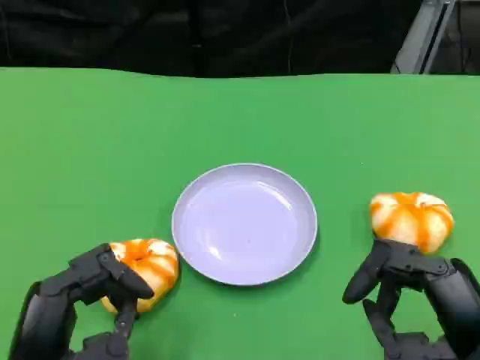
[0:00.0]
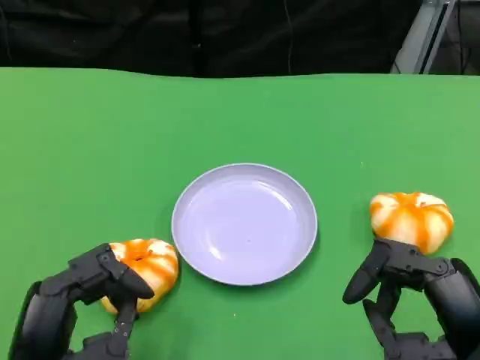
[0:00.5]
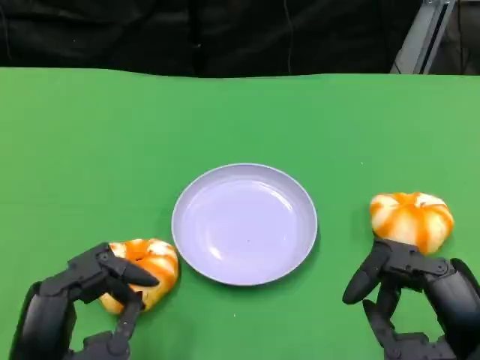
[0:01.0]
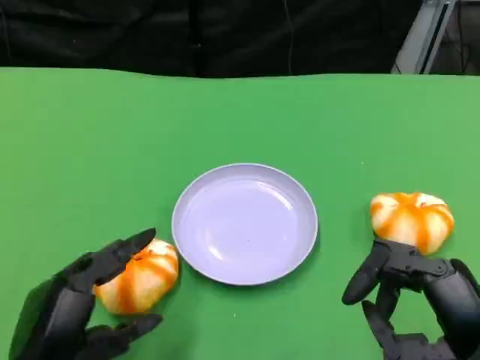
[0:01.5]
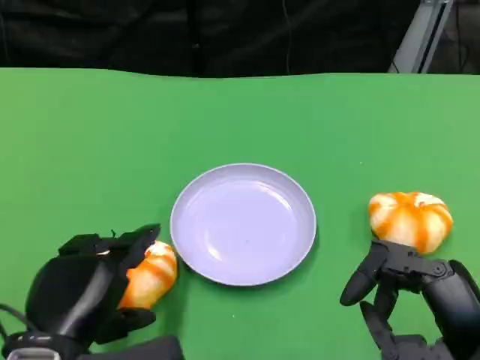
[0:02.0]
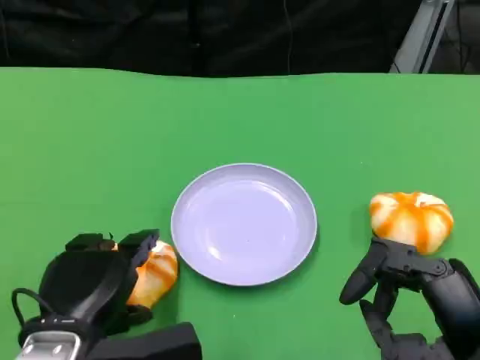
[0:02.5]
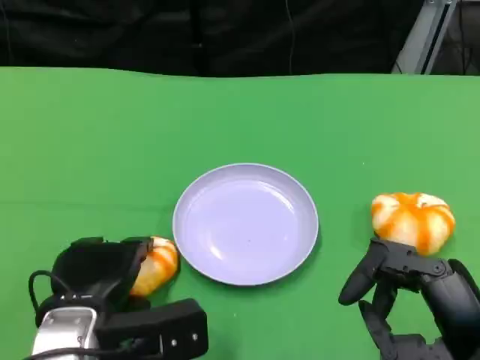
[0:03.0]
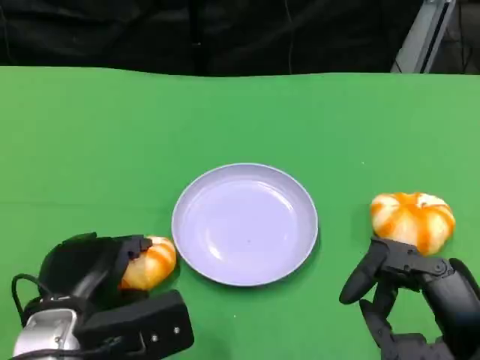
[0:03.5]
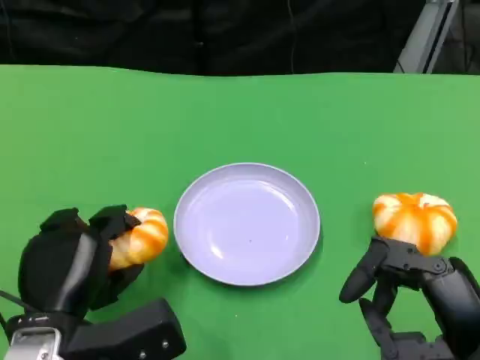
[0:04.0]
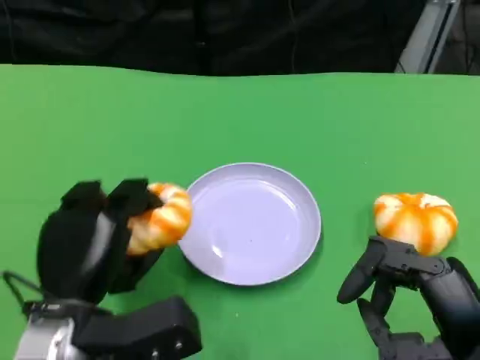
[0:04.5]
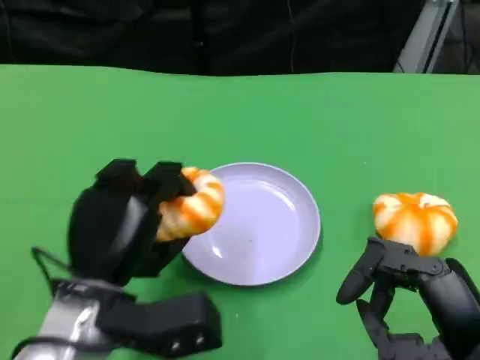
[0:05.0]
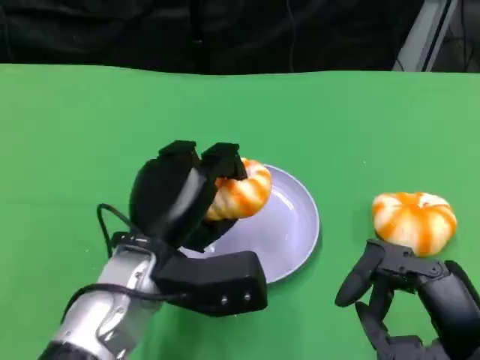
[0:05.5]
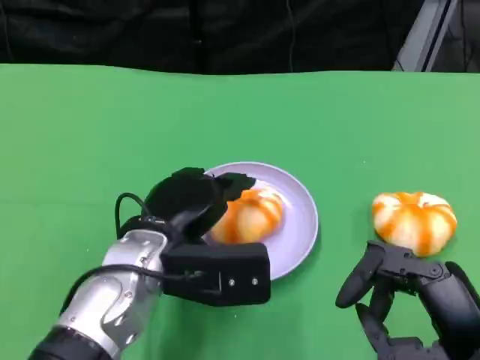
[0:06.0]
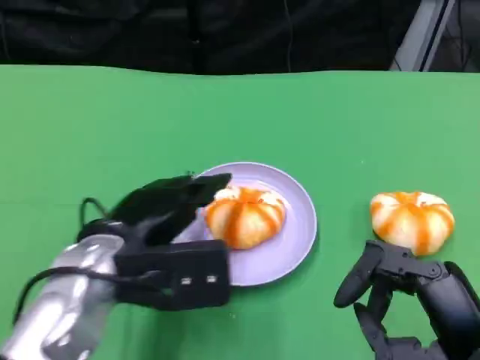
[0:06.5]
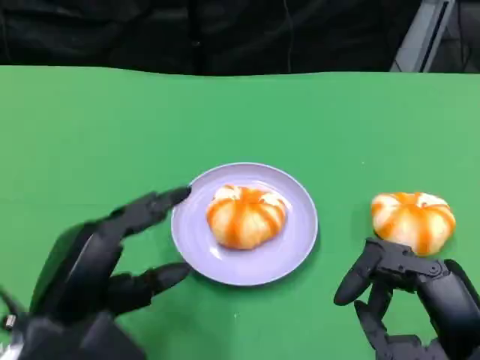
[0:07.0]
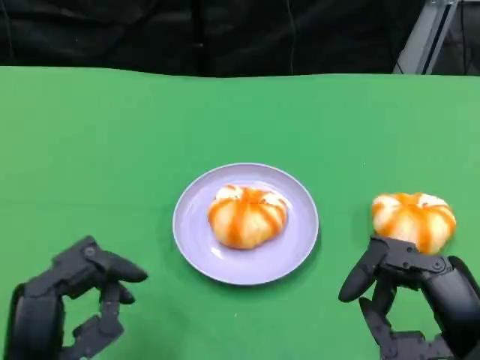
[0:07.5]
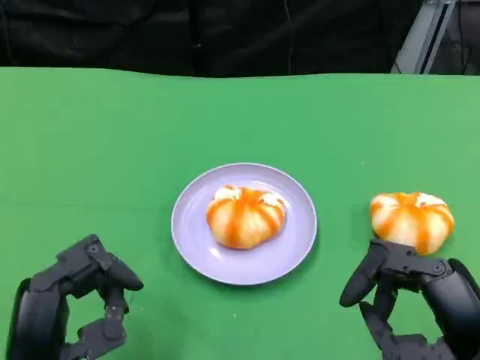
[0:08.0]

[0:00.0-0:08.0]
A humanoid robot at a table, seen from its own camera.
Task of the whole recording: Grasp the bread from the table and place it into the plate.
0:02.0 to 0:04.0: The hands move only a little.
0:04.0 to 0:06.0: The left hand heads to the right and forward, covering roughly 10 cm.
0:06.0 to 0:08.0: The left hand travels backward and to the left by about 15 cm.

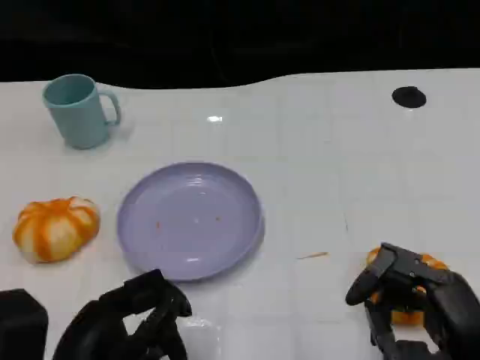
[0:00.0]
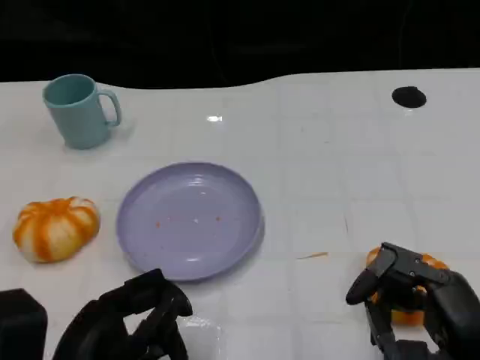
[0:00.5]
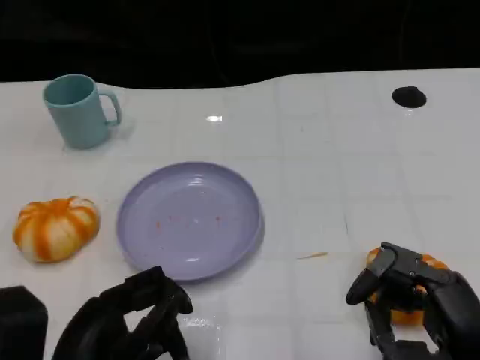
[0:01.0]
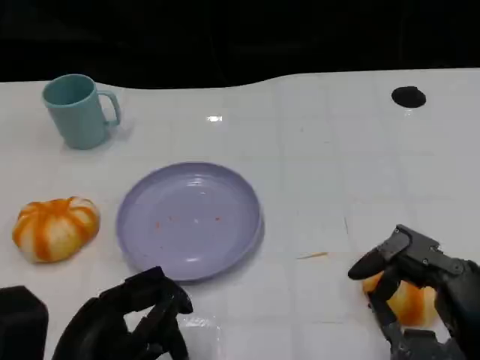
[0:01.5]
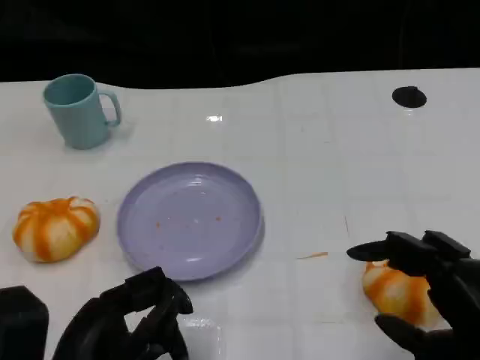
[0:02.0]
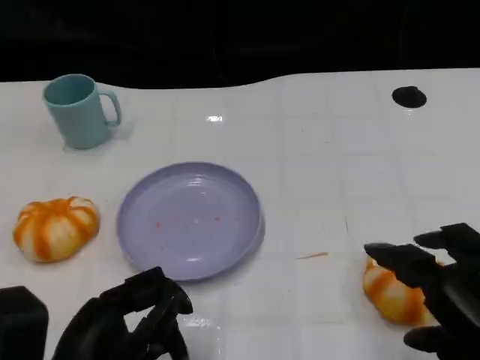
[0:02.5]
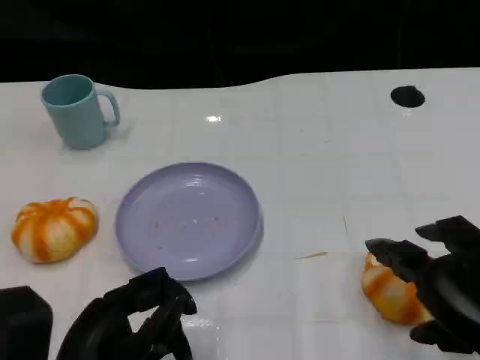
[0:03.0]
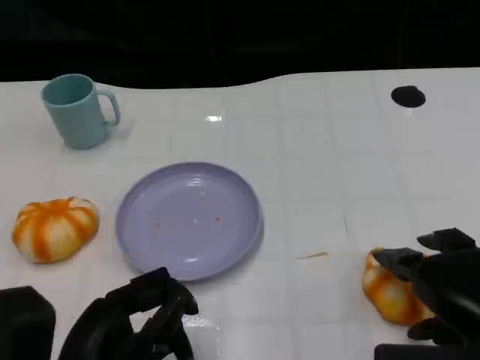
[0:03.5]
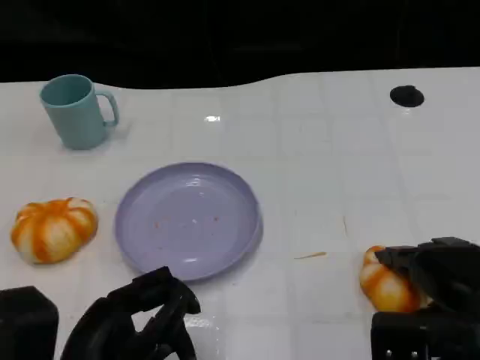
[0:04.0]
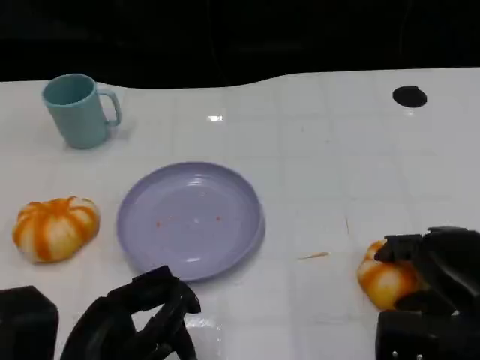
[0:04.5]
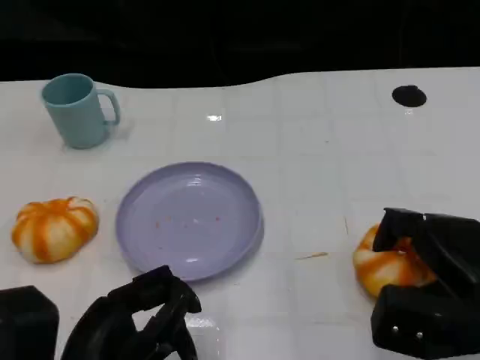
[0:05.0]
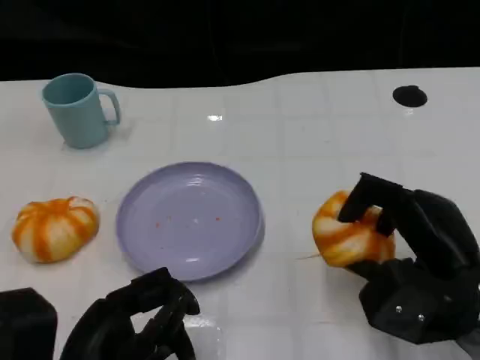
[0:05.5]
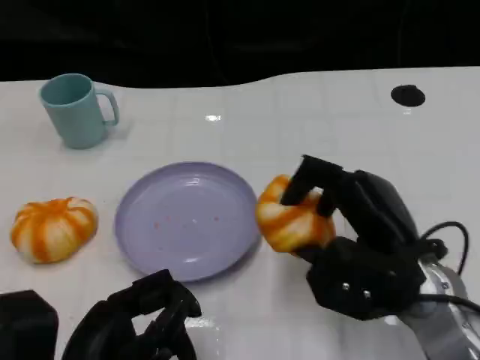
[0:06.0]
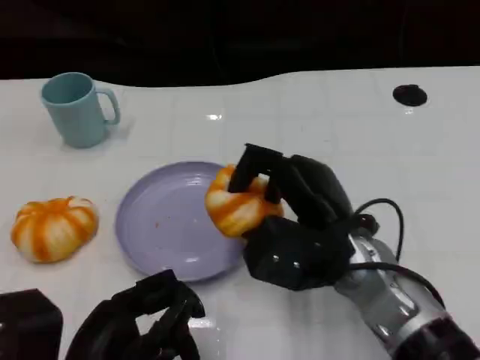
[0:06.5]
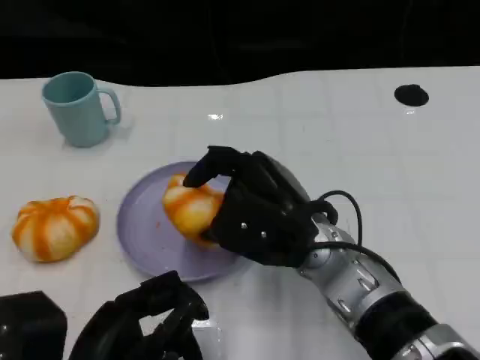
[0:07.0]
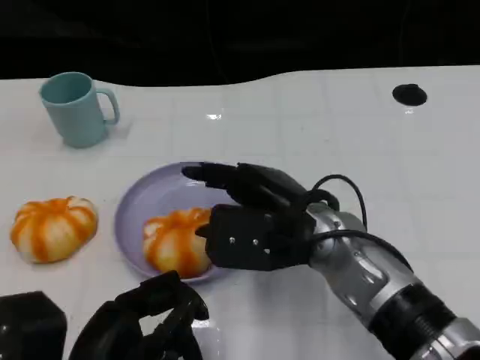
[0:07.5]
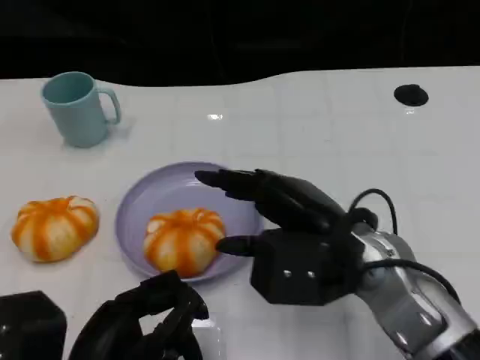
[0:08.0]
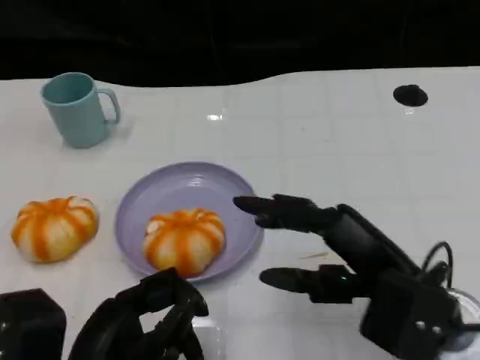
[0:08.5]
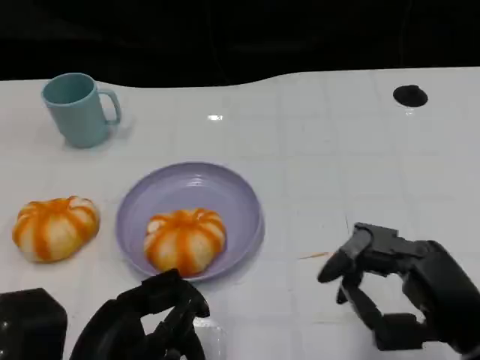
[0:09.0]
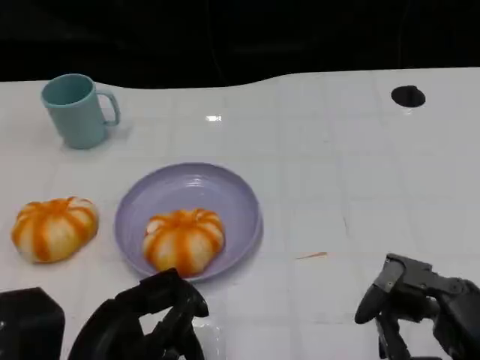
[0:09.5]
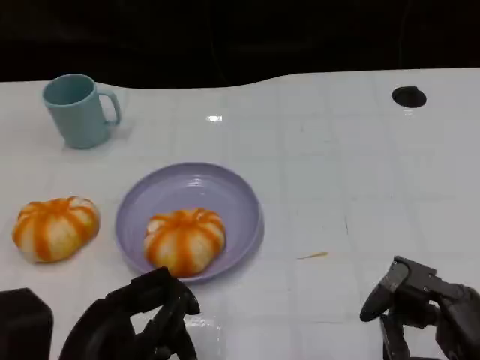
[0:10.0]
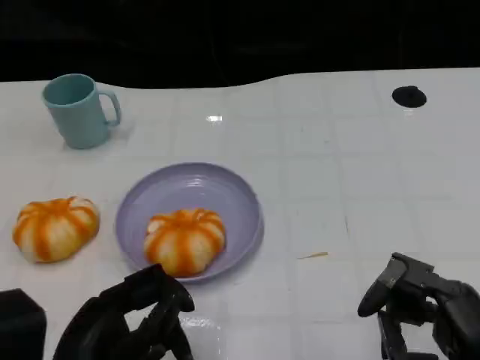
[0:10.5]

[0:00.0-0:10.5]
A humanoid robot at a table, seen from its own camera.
Task of the whole recording: Grasp the bread from the table and place it into the plate.
0:02.0 to 0:04.0: The right hand heads forward, covering approximately 5 cm.
0:04.0 to 0:06.5: The right hand travels to the left and forward by approximately 15 cm.
0:06.5 to 0:08.5: The right hand shifts some 10 cm to the right and backward.
0:08.5 to 0:10.5: The right hand heads backward and to the right, covering about 10 cm.

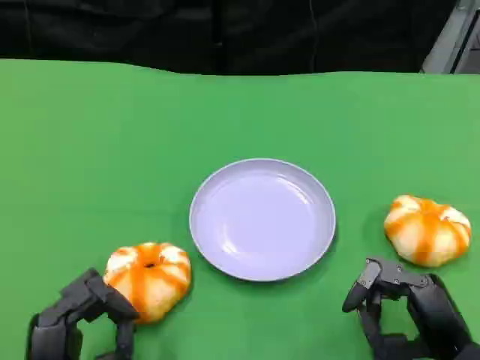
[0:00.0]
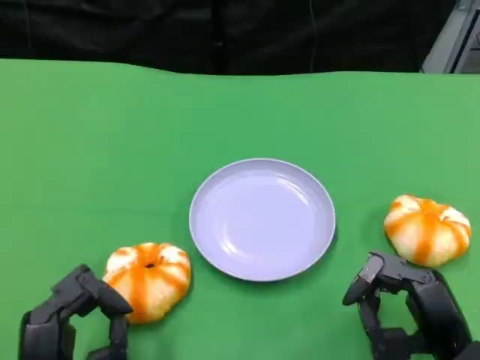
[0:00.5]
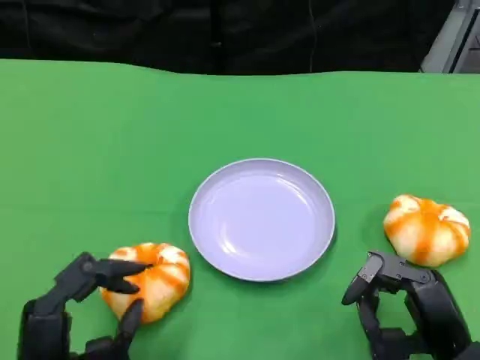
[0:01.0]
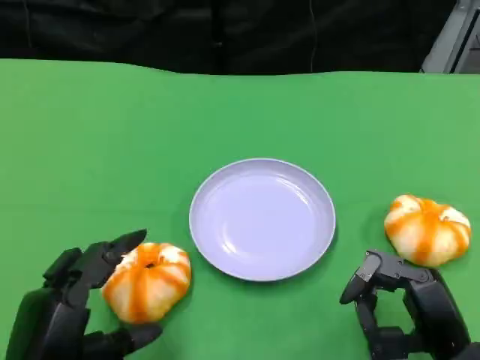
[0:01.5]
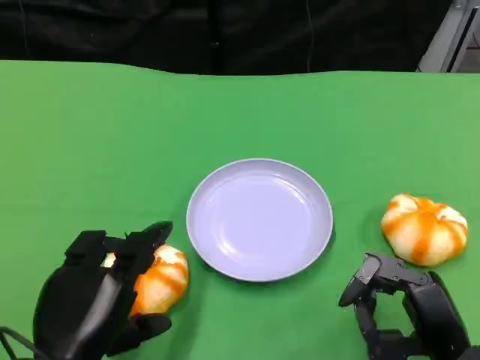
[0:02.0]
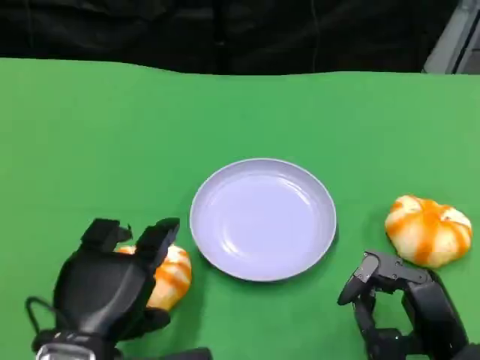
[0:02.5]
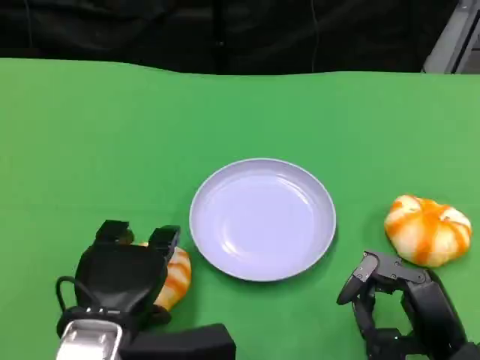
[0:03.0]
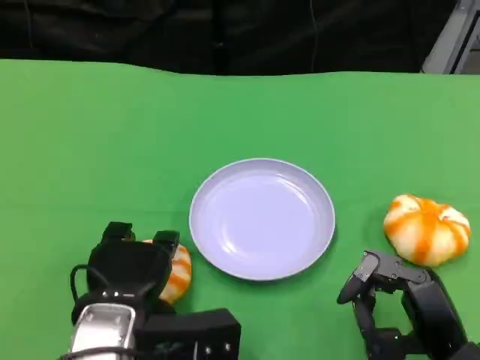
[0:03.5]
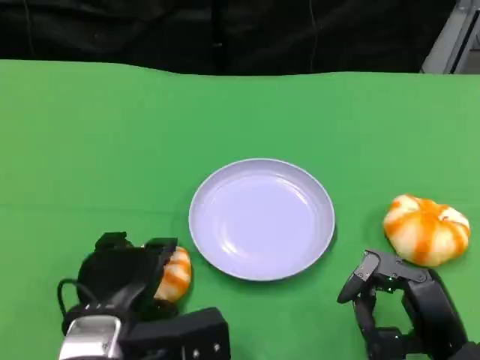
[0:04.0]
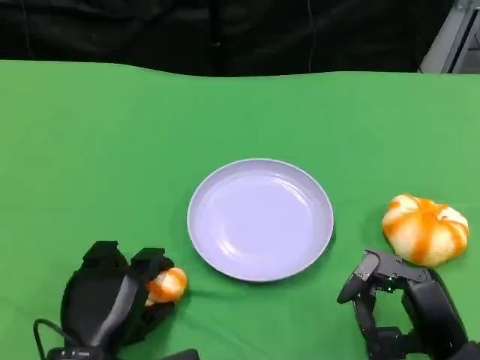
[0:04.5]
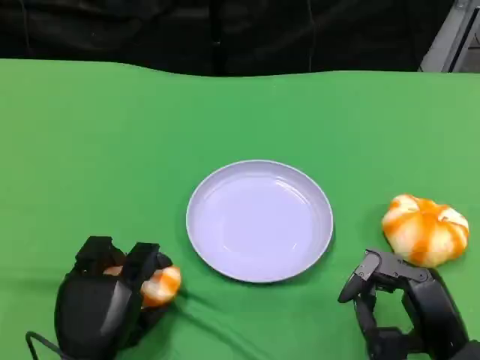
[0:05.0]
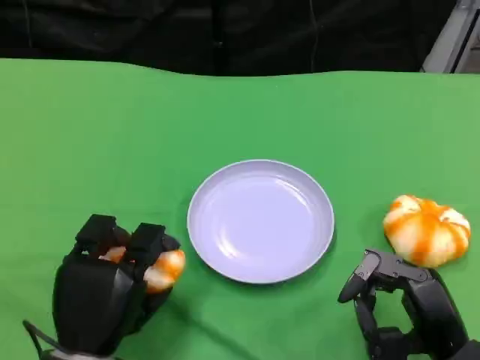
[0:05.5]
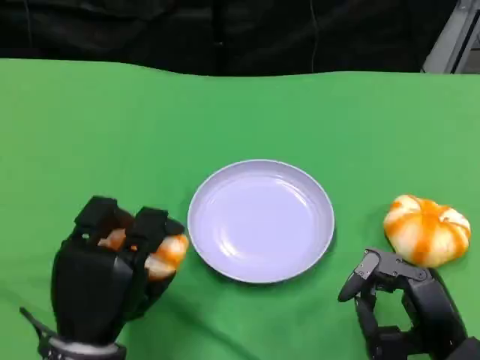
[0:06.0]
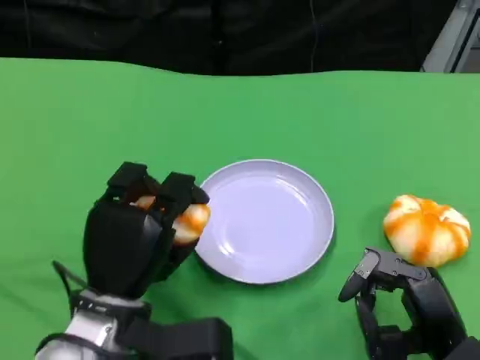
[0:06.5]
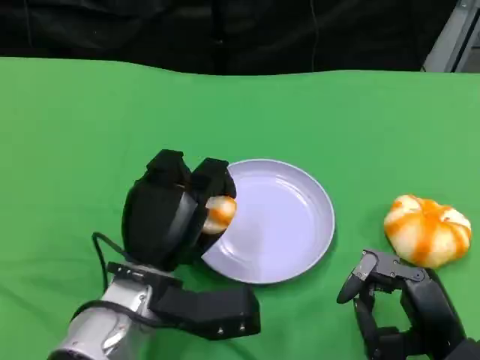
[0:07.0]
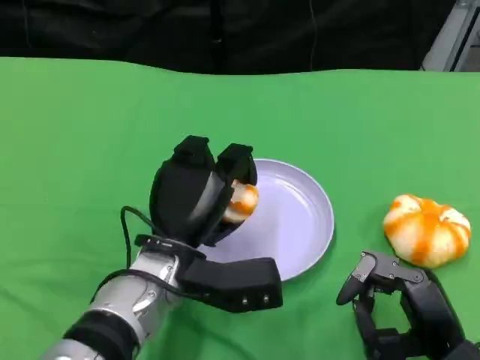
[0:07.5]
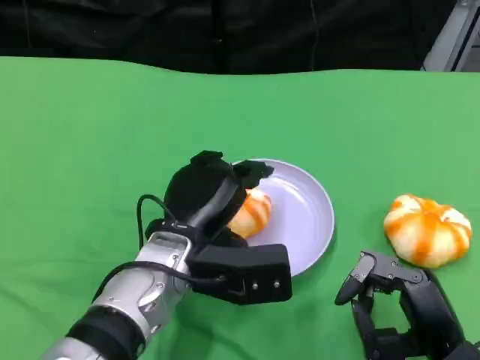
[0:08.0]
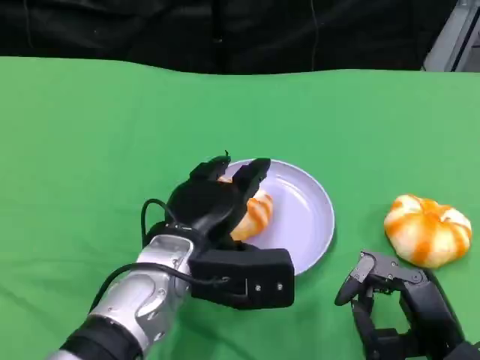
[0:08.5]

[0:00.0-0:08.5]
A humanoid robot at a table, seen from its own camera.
Task of the whole recording: Grasp the bread from the table and place it into the plate.
0:00.0 to 0:02.0: The left hand heads upward, covering roughly 5 cm.
0:02.0 to 0:04.0: The left hand travels forward by about 5 cm.
0:06.5 to 0:08.5: The left hand is displaced to the right by about 5 cm.
